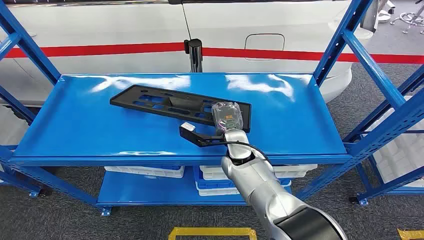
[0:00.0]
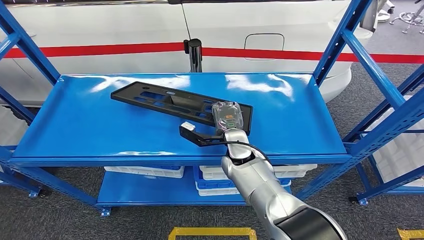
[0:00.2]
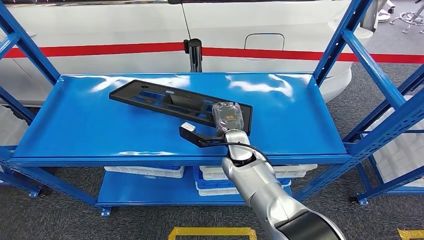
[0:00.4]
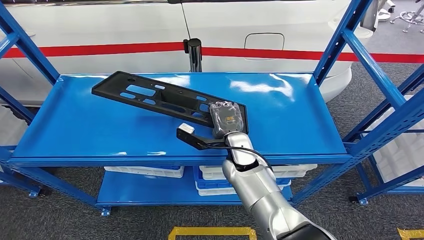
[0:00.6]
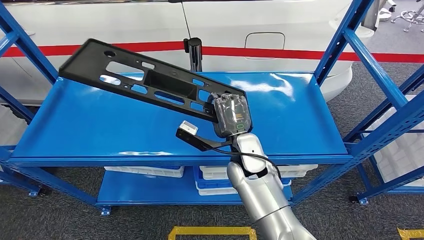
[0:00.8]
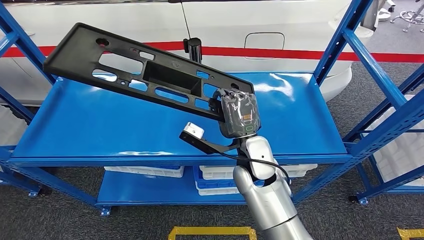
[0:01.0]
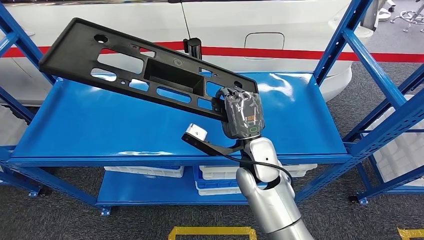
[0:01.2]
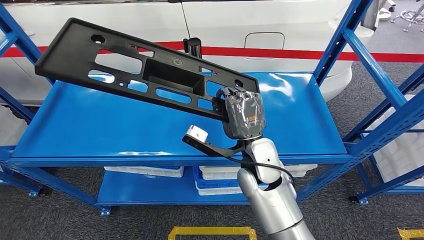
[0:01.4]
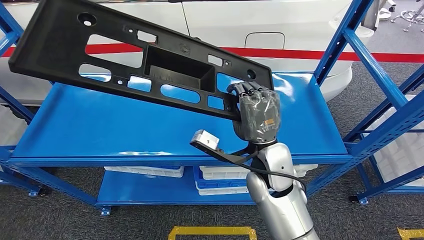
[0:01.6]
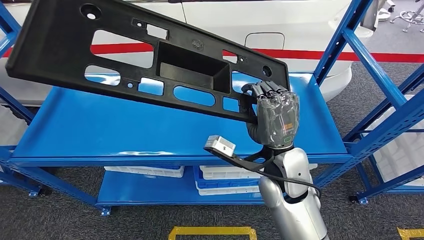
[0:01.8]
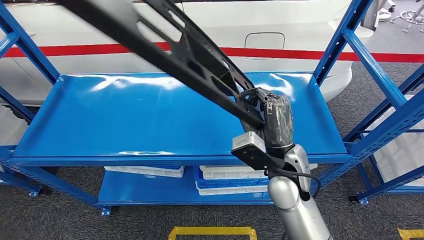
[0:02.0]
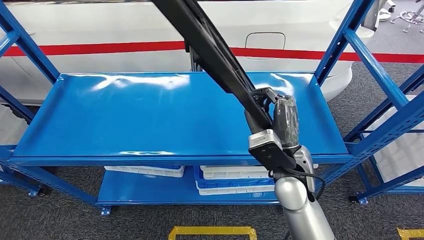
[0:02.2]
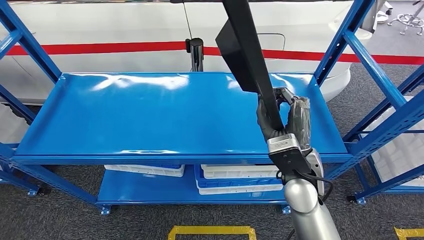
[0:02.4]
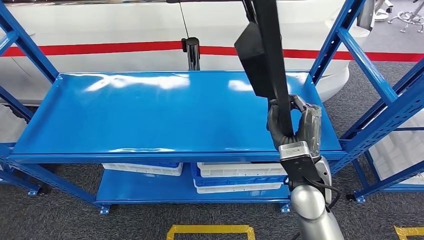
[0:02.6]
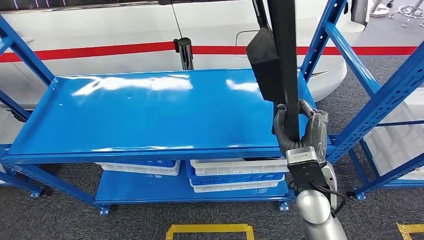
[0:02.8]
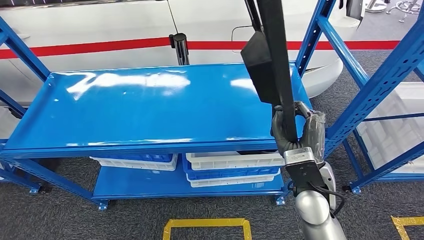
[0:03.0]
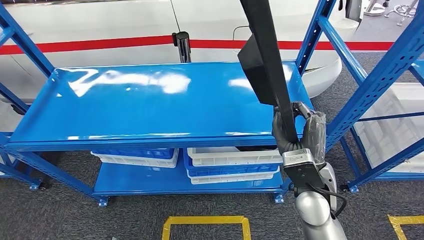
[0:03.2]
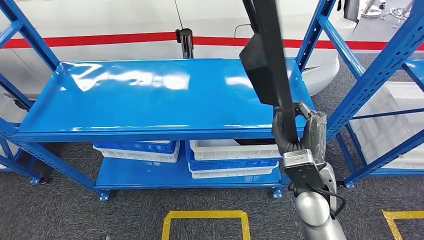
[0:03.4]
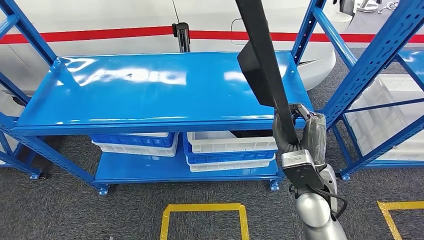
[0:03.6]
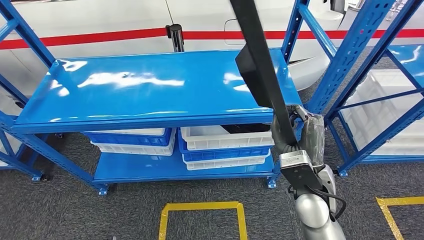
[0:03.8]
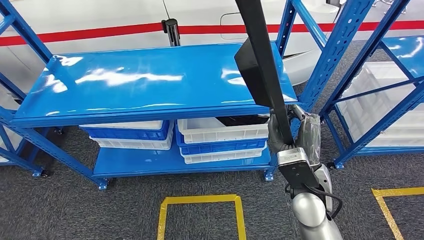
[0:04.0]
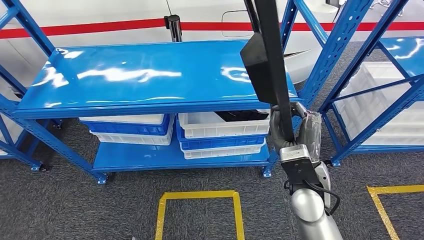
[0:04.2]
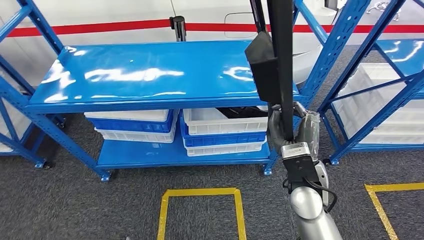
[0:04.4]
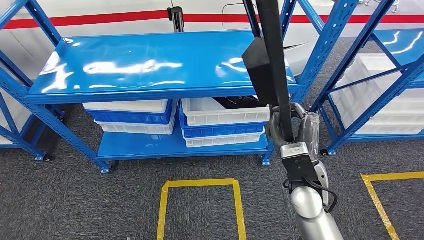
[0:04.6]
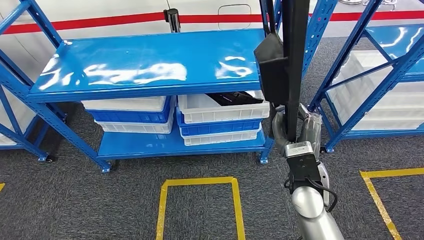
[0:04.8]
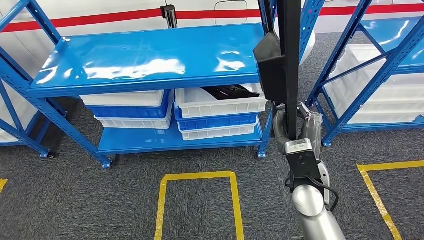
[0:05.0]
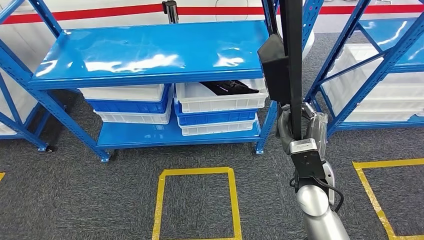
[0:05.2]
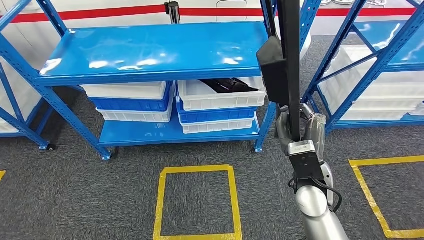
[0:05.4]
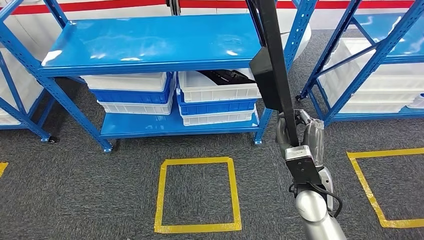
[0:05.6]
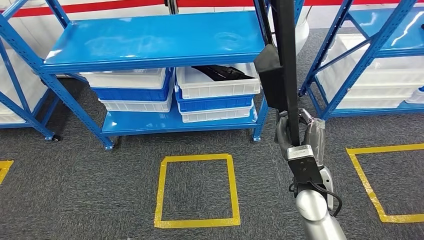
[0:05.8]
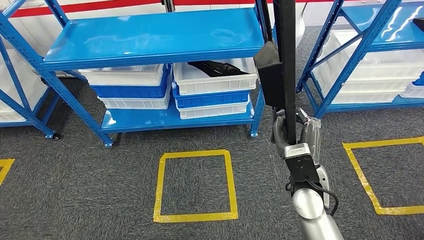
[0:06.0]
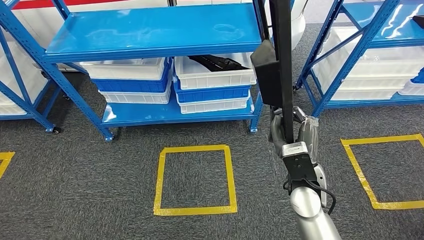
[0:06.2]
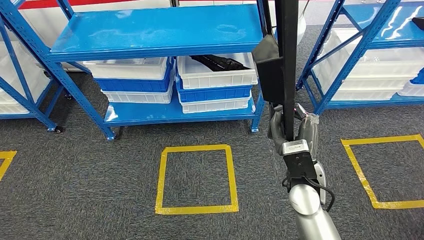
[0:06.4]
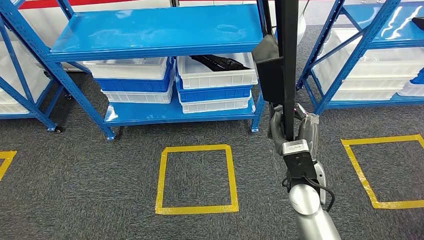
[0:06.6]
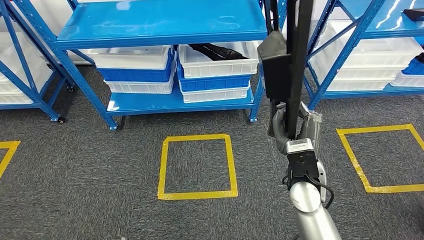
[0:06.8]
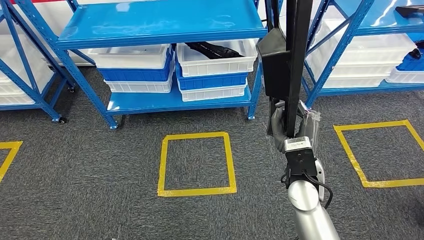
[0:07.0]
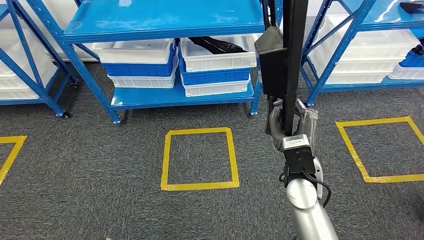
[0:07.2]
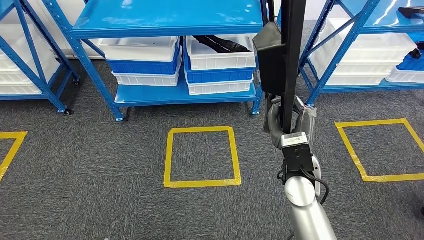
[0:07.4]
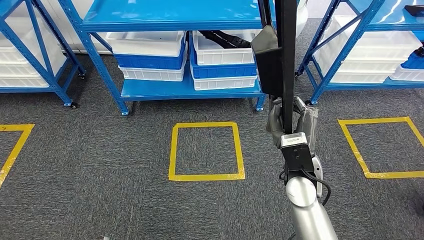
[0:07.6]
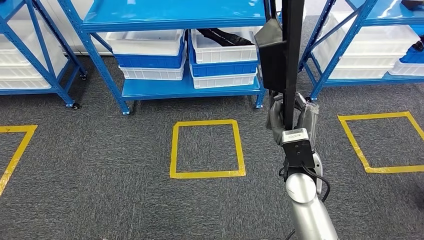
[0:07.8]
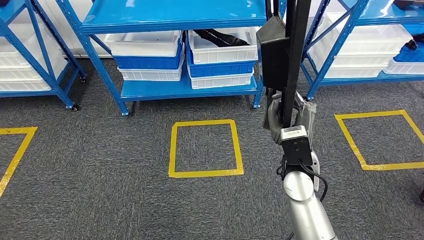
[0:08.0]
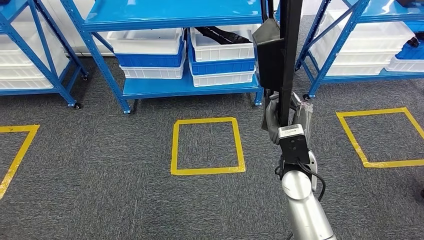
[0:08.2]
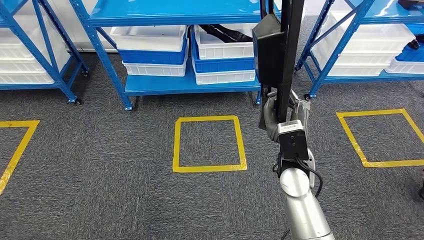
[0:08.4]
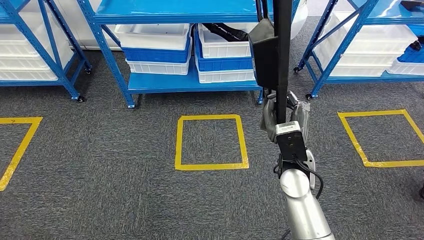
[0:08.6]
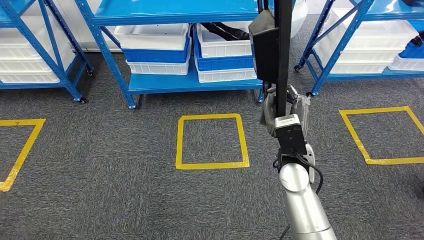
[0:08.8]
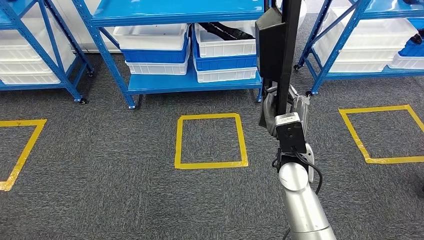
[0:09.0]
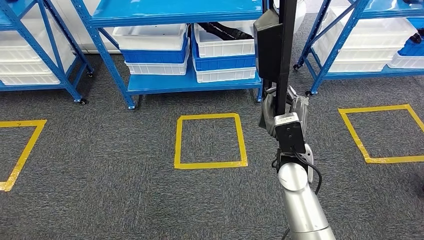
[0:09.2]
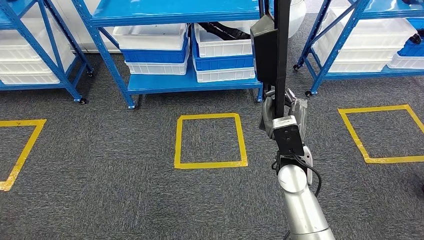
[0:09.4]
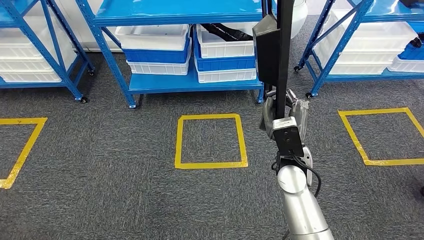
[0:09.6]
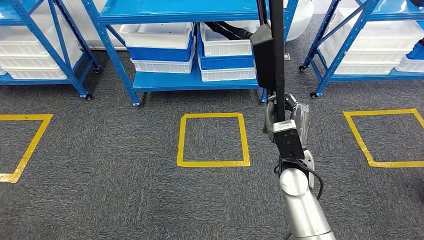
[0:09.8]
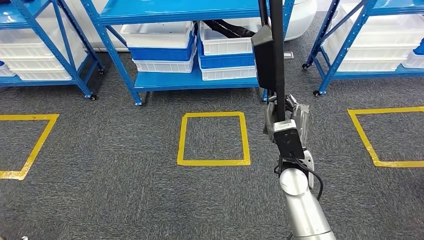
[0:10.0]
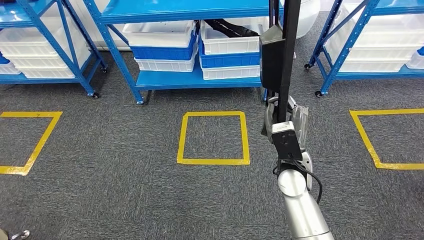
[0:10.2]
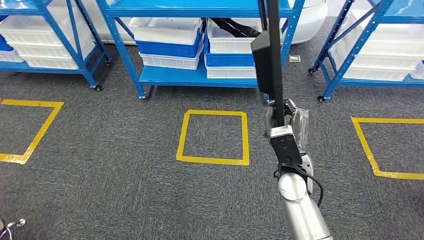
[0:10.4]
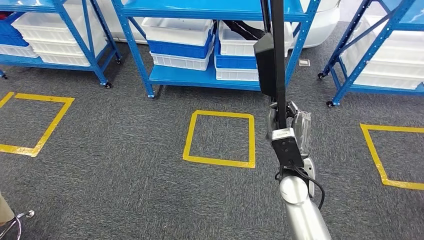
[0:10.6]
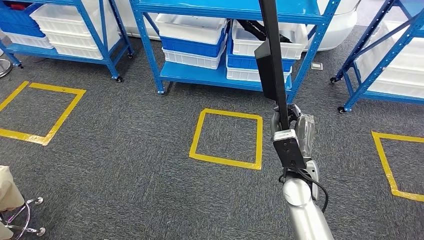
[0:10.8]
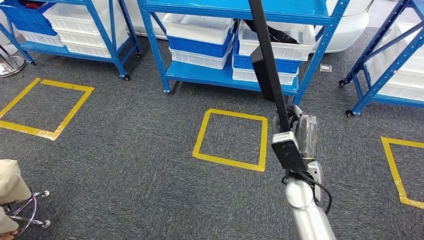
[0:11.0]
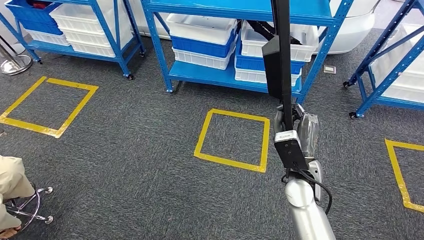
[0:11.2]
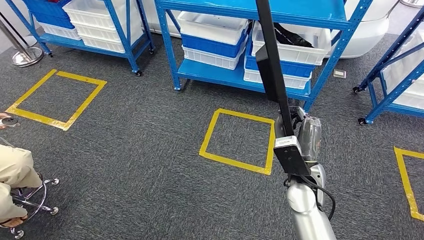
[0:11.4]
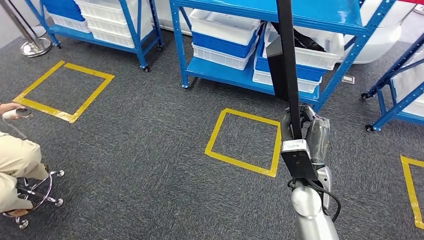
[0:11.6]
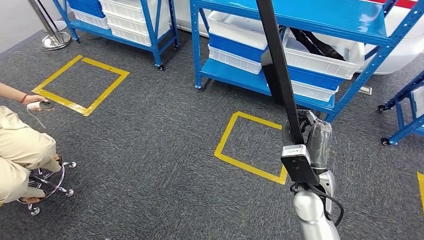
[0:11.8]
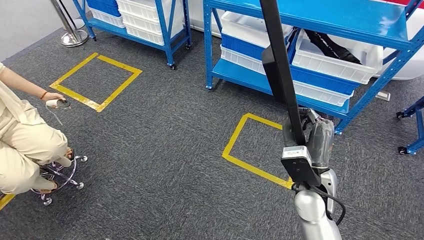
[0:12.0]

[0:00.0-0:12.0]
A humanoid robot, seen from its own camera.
Step, 0:00.0 to 0:05.6: Pick up the large material from the shelf.

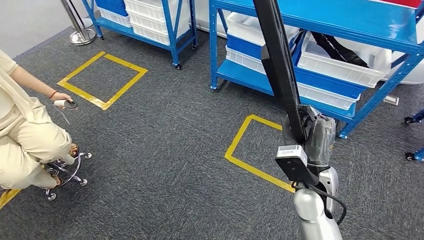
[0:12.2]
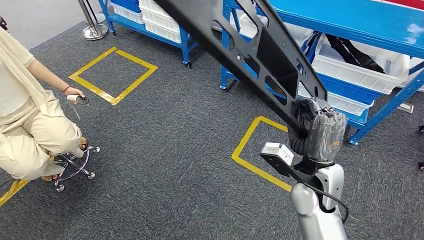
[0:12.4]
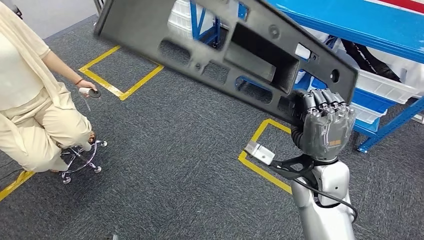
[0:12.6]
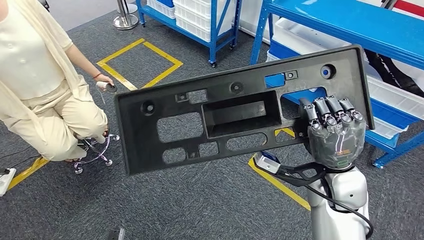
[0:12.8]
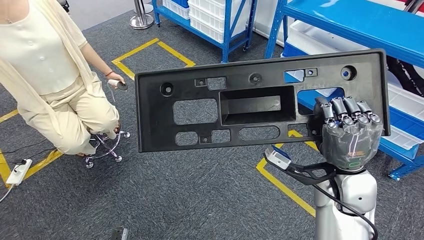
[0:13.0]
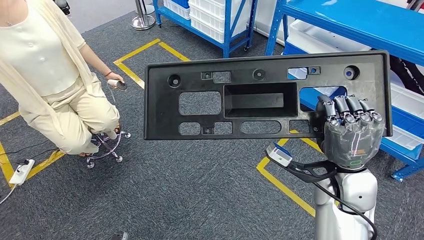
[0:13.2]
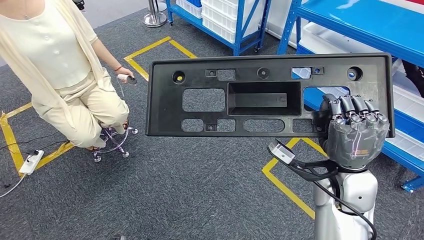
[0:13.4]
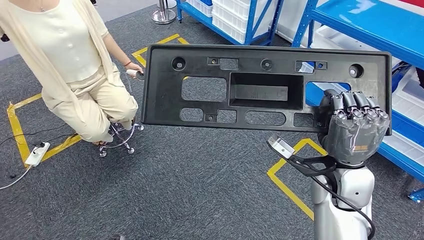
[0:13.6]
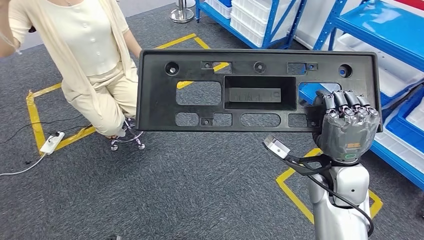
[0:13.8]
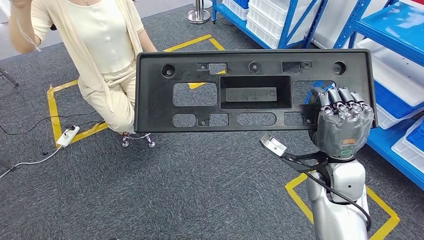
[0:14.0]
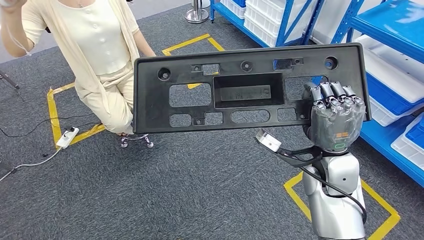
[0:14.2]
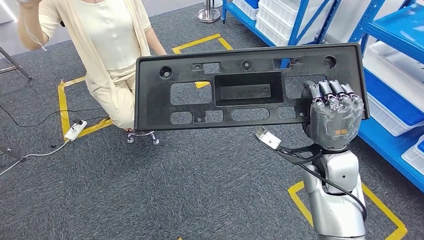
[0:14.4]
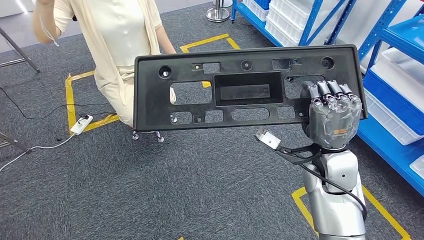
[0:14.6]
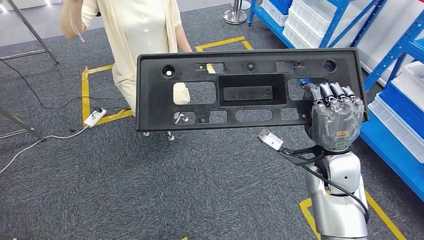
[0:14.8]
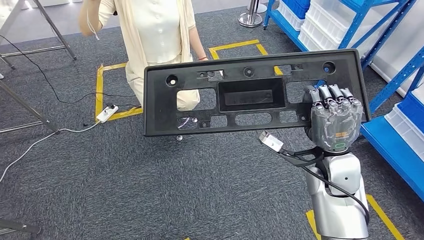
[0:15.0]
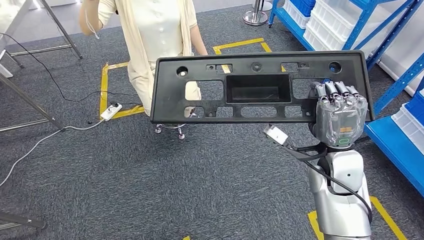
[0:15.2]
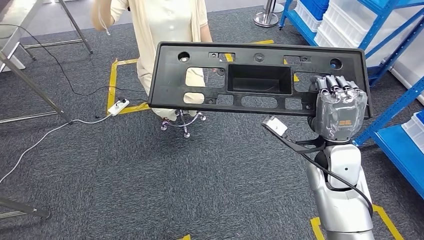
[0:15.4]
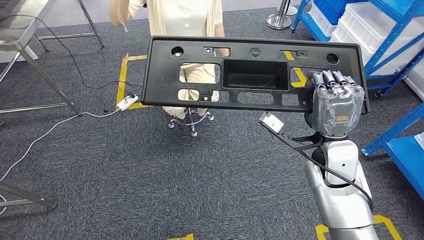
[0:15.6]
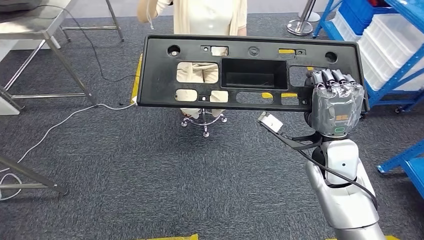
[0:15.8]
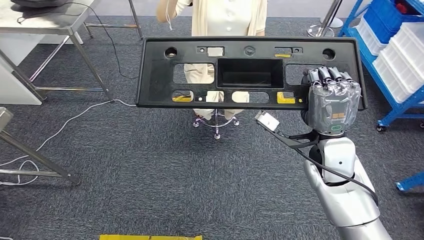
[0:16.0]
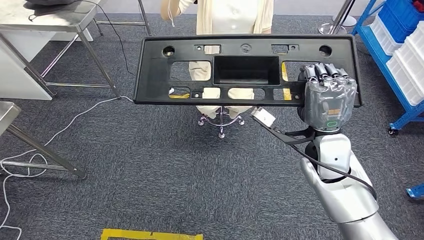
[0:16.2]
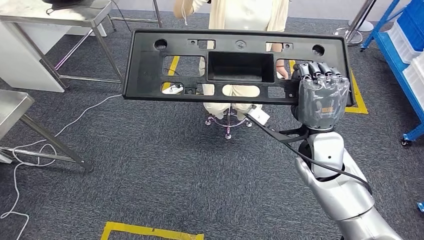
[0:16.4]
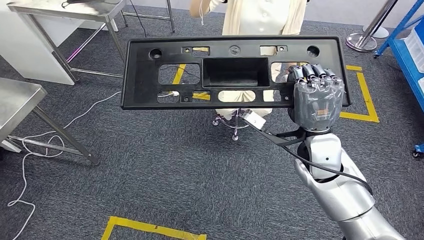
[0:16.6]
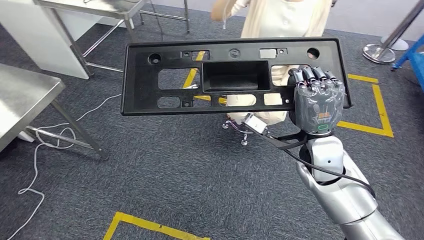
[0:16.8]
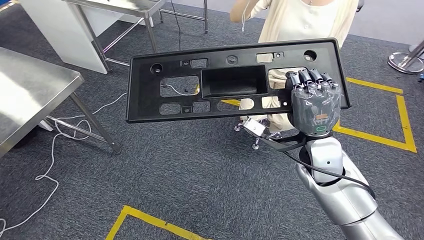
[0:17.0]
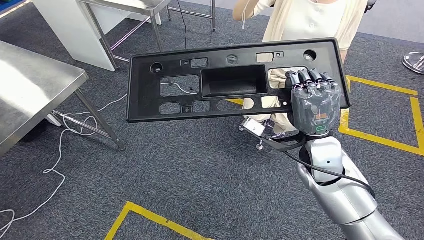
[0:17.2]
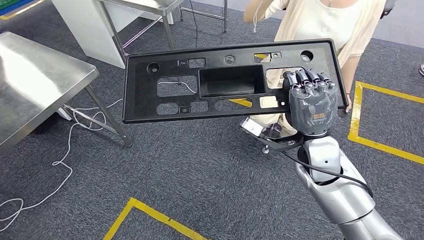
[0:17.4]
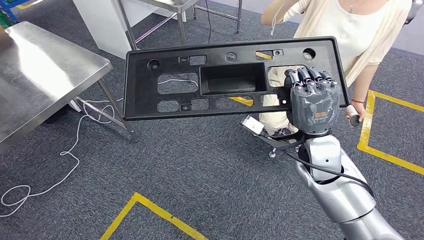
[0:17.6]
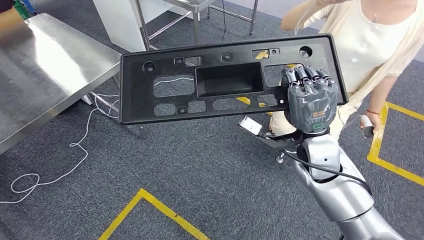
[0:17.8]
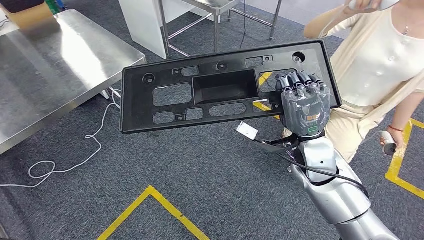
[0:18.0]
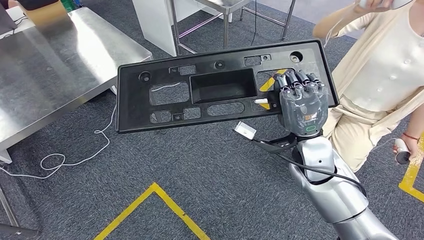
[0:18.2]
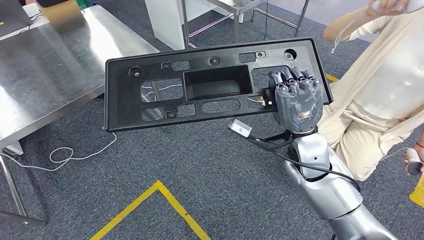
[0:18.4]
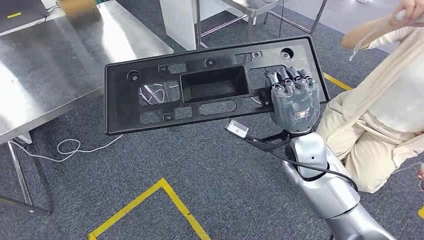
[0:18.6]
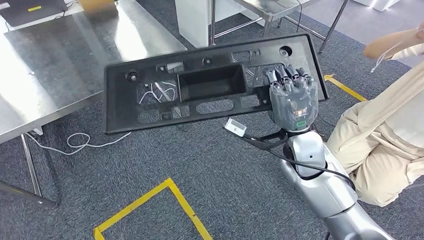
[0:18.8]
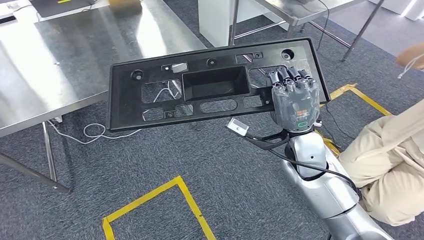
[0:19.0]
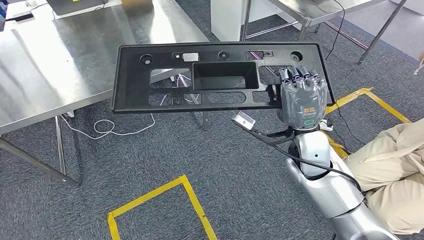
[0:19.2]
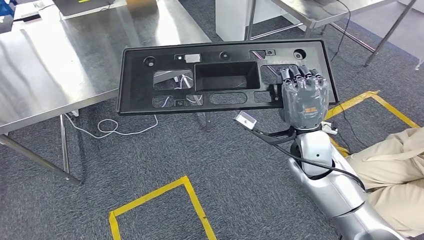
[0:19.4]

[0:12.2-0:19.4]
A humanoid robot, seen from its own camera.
Step, 0:12.2 to 0:17.8: Move the large material to the front of the workbench.
